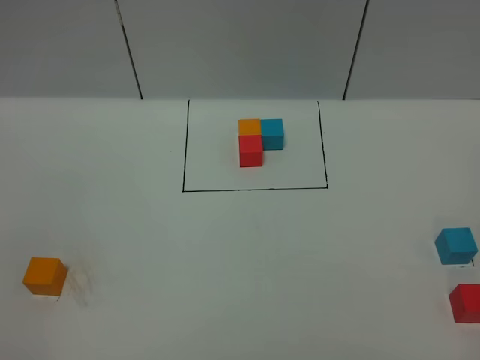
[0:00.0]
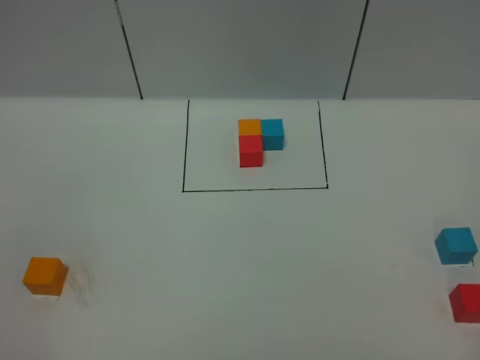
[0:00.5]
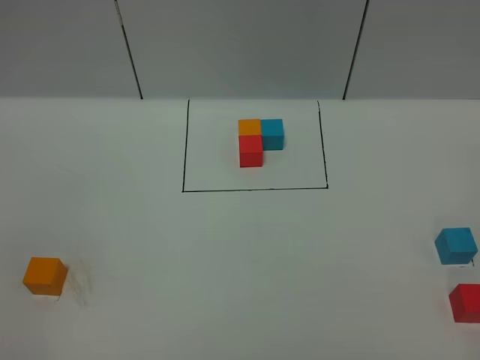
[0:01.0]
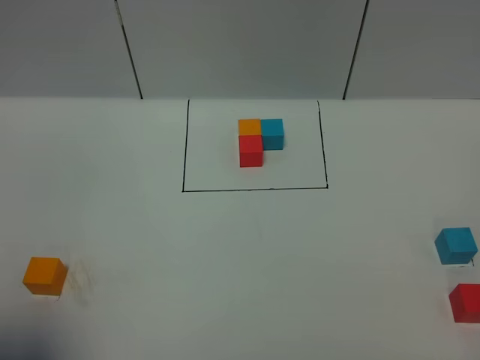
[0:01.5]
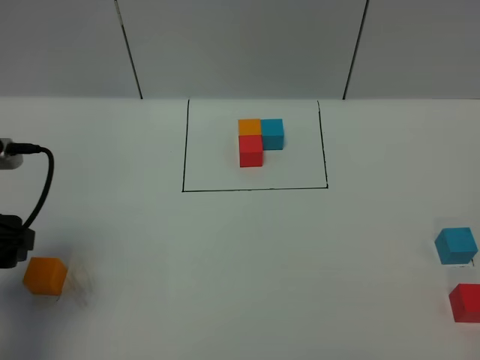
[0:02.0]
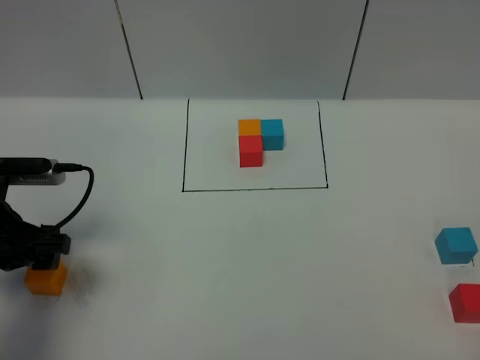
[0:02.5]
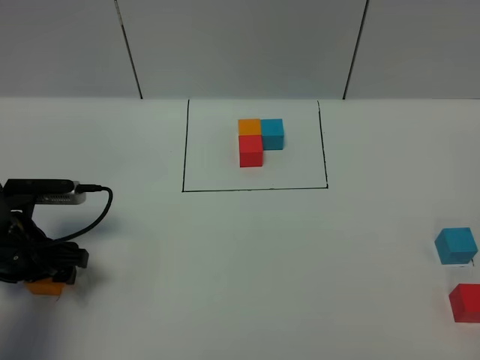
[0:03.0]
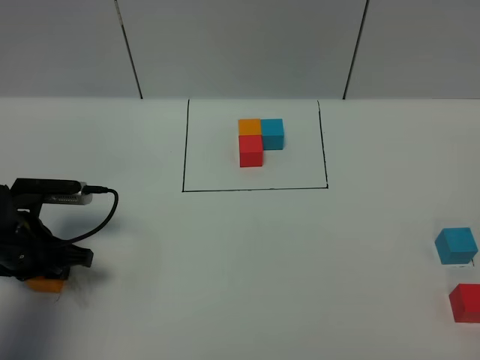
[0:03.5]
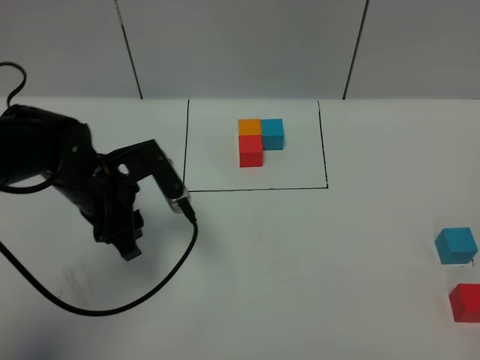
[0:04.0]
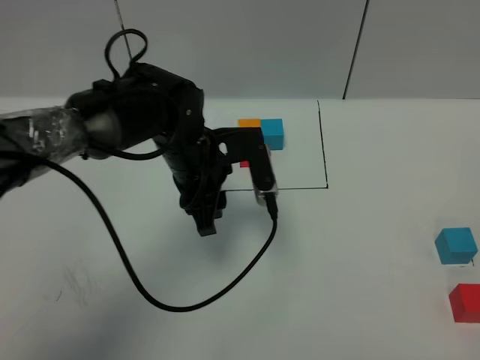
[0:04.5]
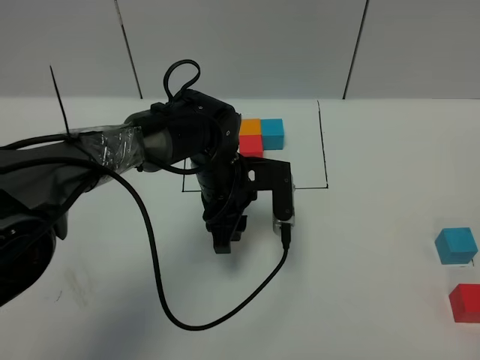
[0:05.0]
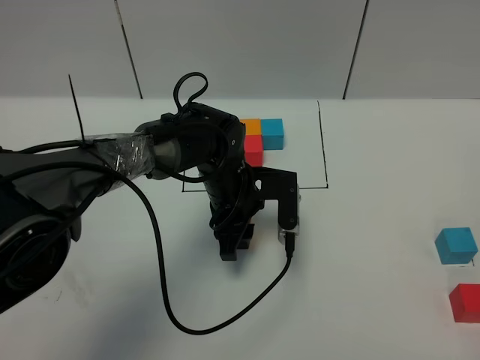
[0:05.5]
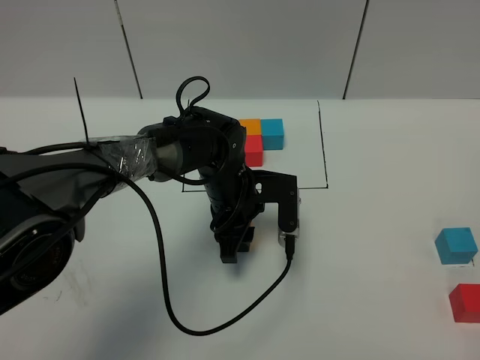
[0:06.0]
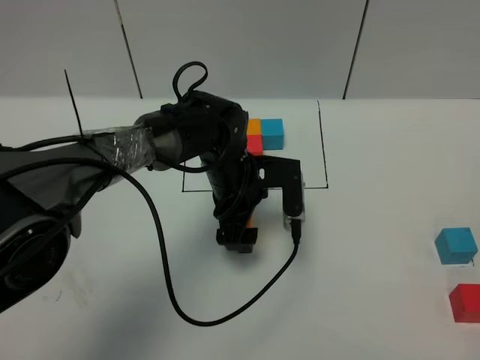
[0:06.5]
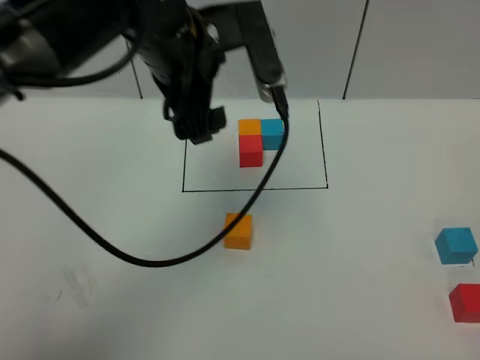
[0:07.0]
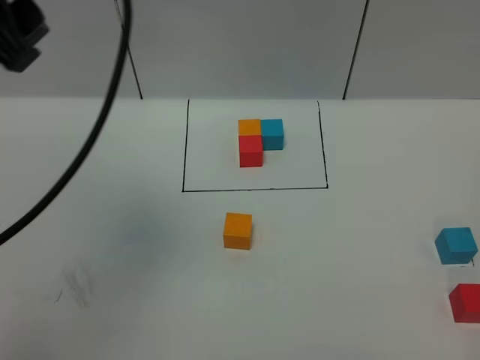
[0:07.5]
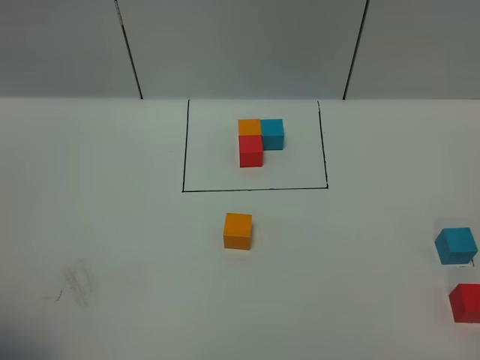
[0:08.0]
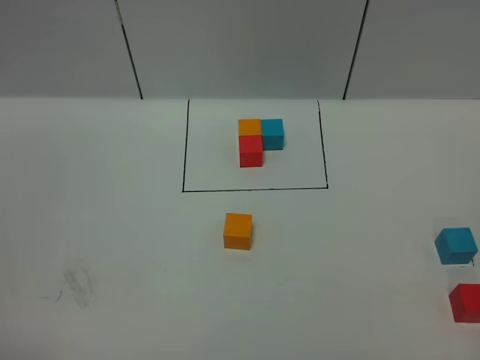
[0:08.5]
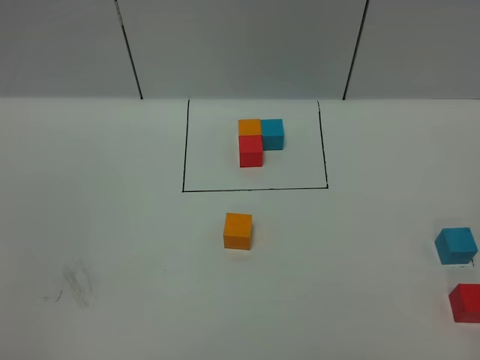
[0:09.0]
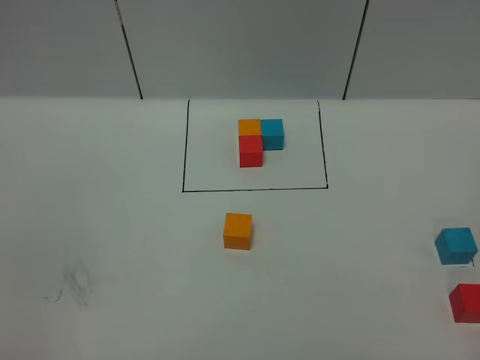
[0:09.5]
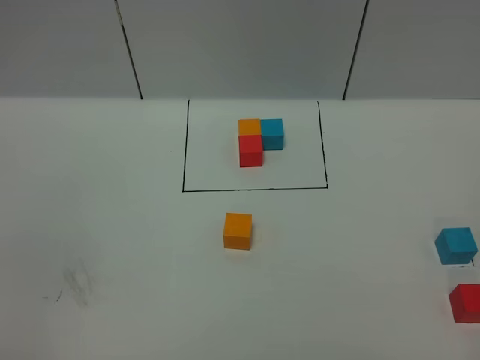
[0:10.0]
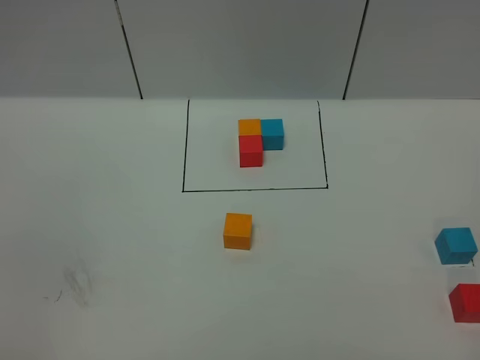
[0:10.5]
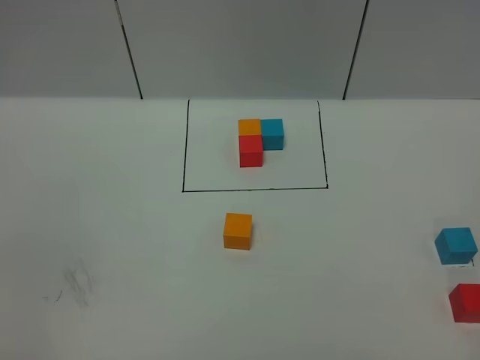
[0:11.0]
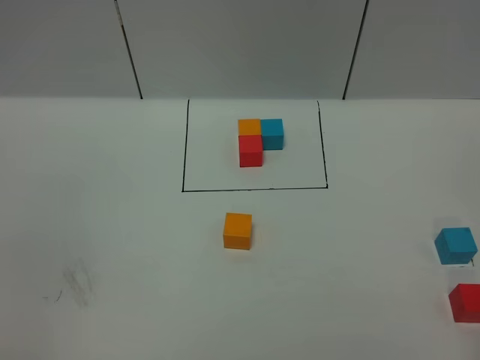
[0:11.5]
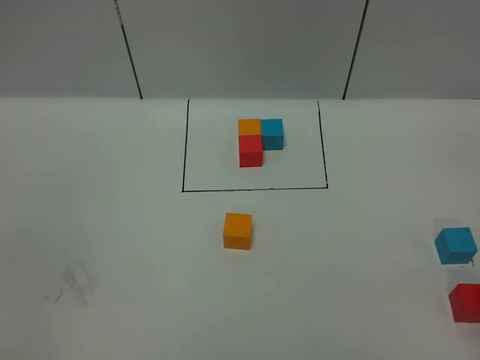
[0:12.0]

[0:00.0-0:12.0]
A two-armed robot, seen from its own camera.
Task of the whole recording: According to the building block template in front, assemble the scattered blocks together.
Step, 0:02.0 to 0:06.5: Put the orange cube in the center of the table.
0:00.0 to 0:02.0: The left gripper travels forward by some 25 cm.
0:02.0 to 0:04.0: The left gripper shifts approximately 15 cm to the right, forward and downward, and closes up.
0:04.0 to 0:06.0: The left gripper is displaced to the right and downward by some 15 cm.
0:06.0 to 0:08.0: The left gripper travels upward, backward and to the left by about 50 cm, and opens up.

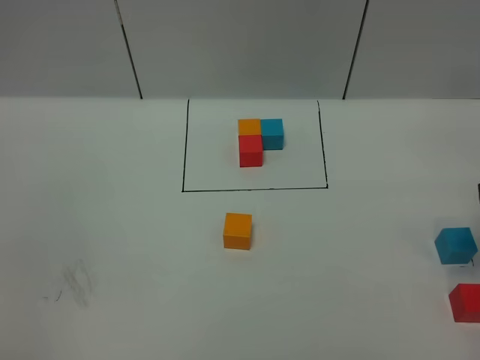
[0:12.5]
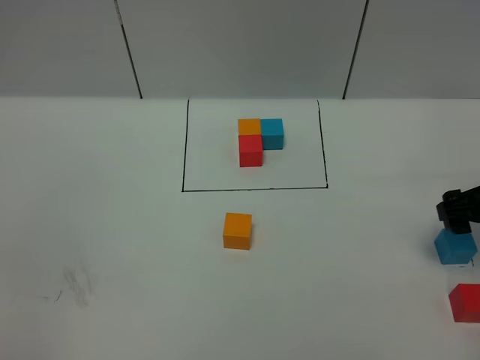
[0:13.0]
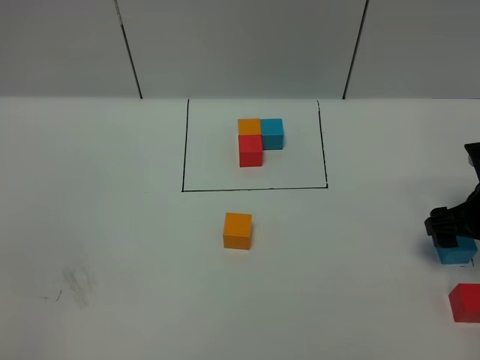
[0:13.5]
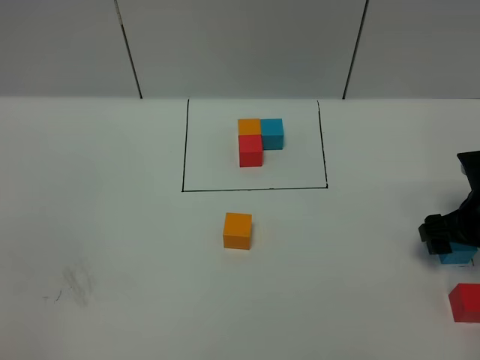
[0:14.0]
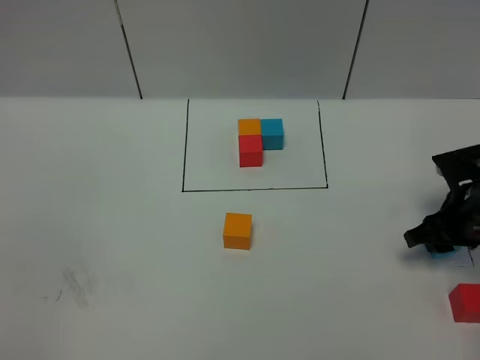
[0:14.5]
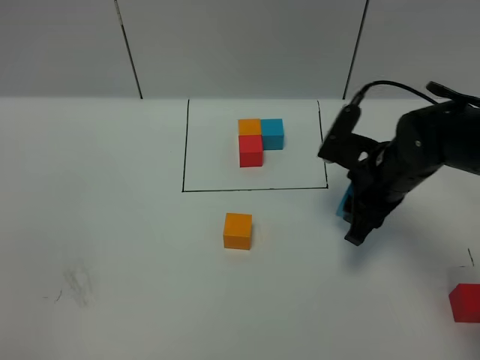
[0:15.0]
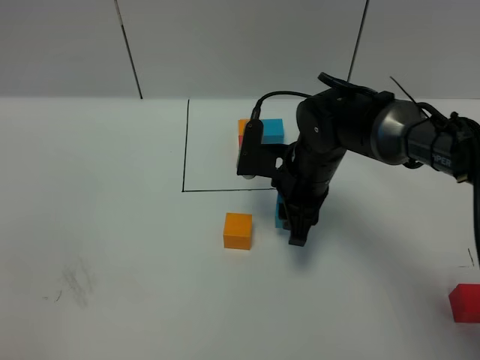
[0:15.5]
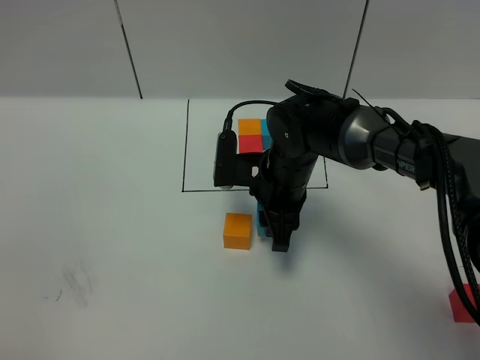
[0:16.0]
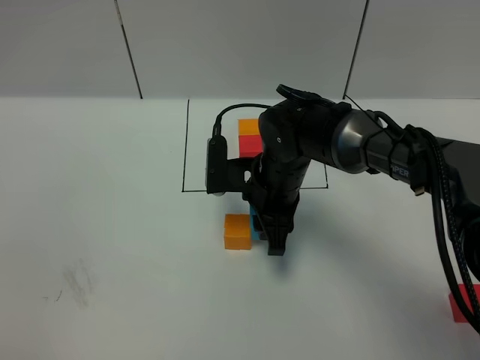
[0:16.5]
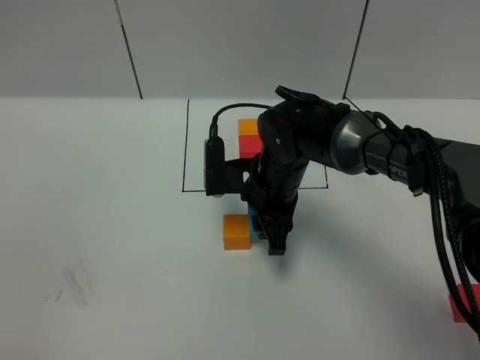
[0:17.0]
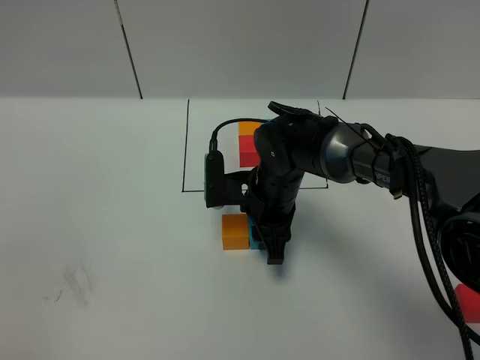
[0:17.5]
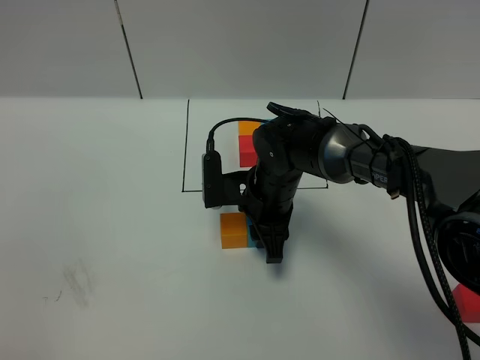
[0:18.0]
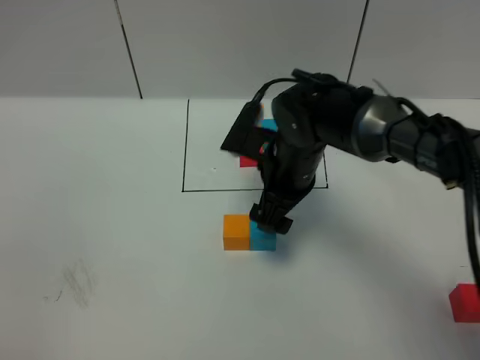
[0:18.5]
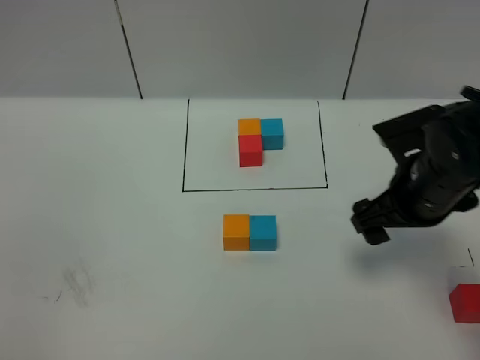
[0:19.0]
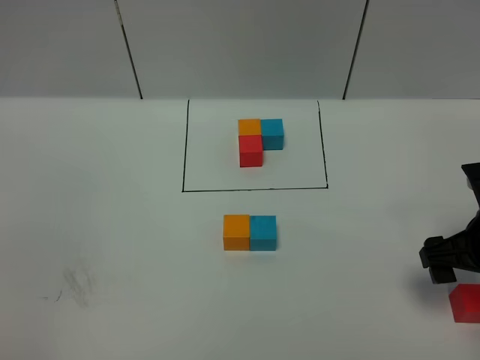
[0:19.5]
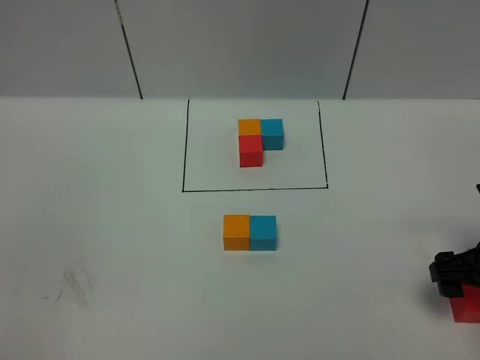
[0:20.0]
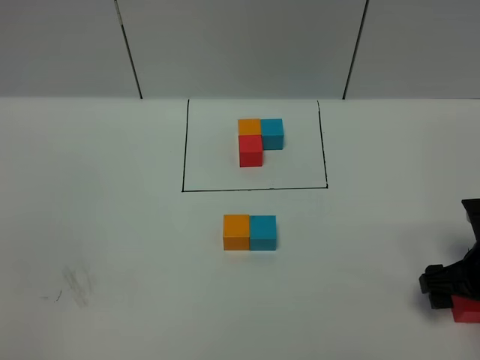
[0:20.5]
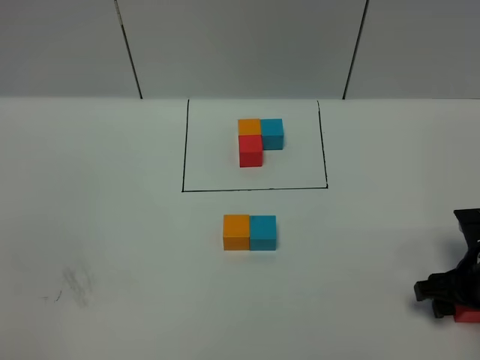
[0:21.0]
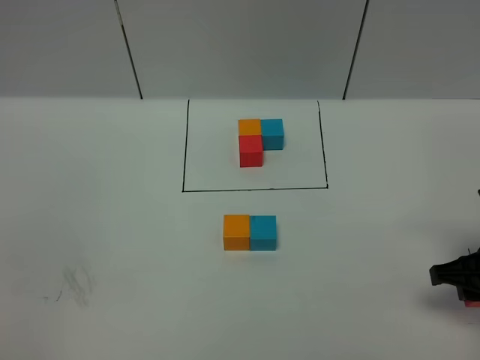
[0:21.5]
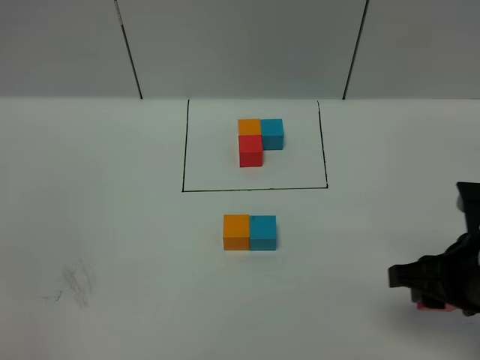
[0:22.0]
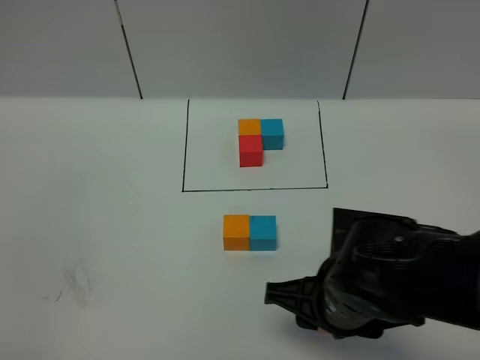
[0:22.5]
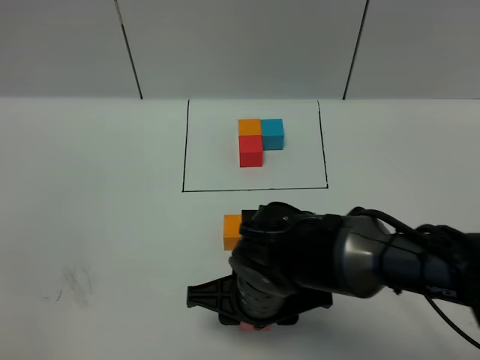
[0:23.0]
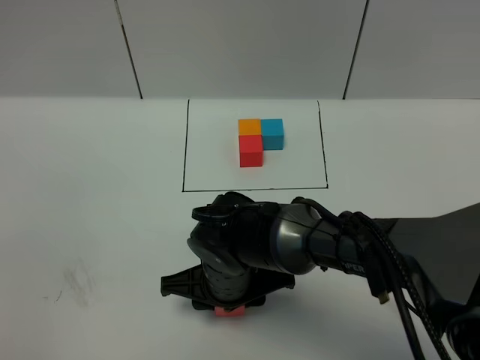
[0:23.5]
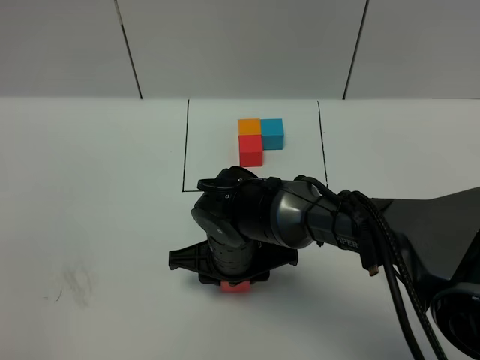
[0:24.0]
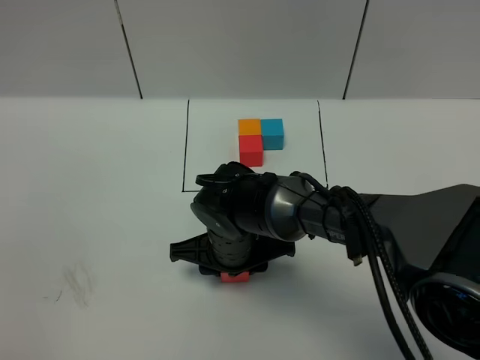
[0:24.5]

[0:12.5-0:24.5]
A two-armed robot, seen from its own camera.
Task of the whole recording: According to the building block template in front, assemble the scattered blocks together.
Step, 0:12.5 to 0:18.0: Put the blue cube on the right of the orange cube.
0:12.5 to 0:14.5: The right gripper shifts roughly 15 cm downward and forward, and closes.
0:14.5 to 0:16.5: The right gripper travels to the left by some 25 cm.
0:16.5 to 0:18.5: The right gripper opens.
0:18.5 to 0:20.5: The right gripper moves to the right and backward, some 25 cm.
0:20.5 to 0:22.5: The right gripper travels to the left by about 20 cm, and closes up.
0:22.5 to 0:24.5: The right gripper travels to the left, forward and downward by about 15 cm.

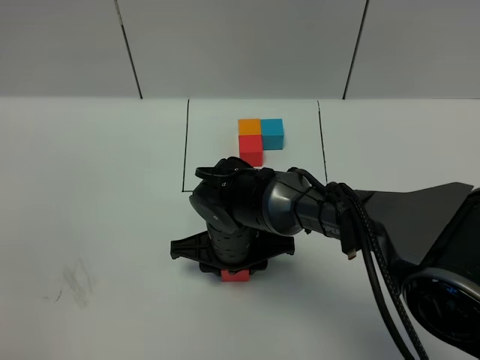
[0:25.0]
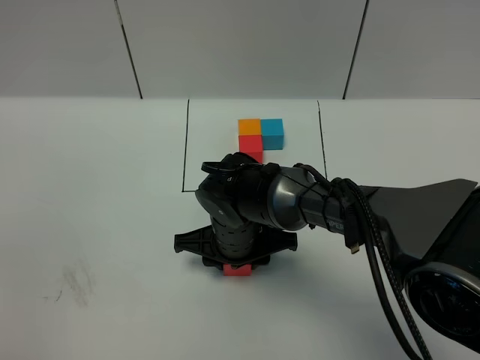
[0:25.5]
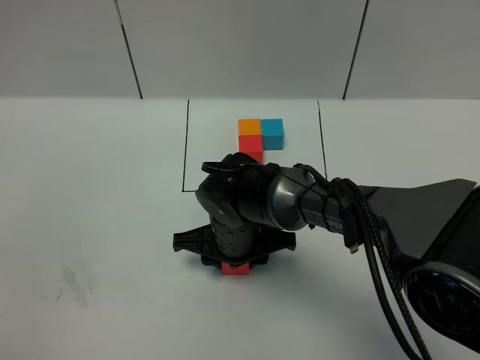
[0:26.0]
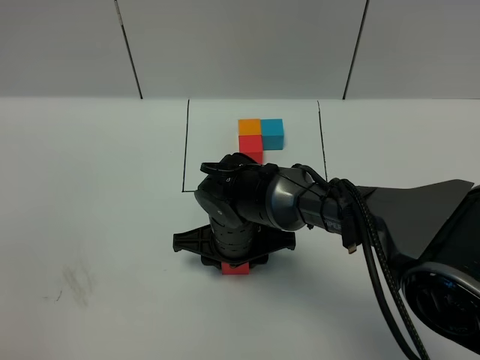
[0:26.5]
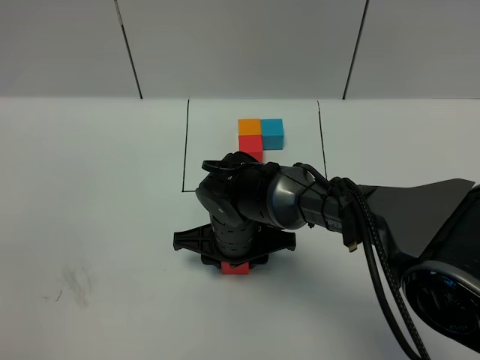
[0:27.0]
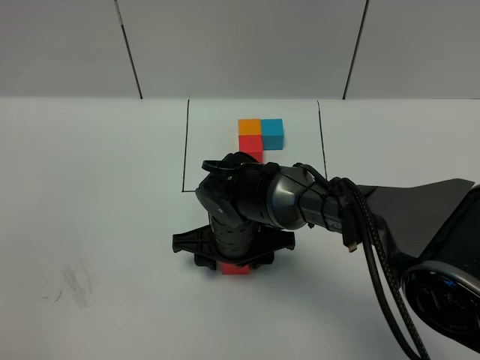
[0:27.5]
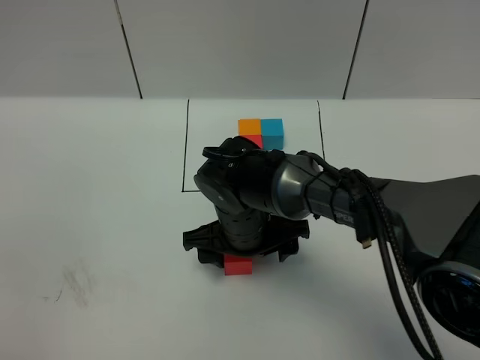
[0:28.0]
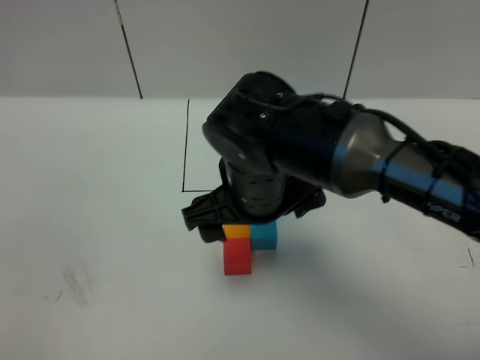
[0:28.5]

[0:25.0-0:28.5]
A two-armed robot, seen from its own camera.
Task of the whole recording: According to the building block template in front, assemble the scattered blocks together.
Step, 0:25.0 to 0:28.0: Put the red cube in the front of the orange cube.
0:25.0 to 0:27.0: Both grippers stay put.
0:27.0 to 0:28.5: The right gripper goes roughly 15 cm upward, and opens its fingers.
